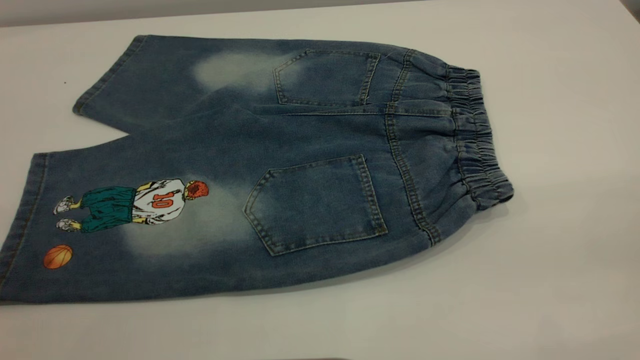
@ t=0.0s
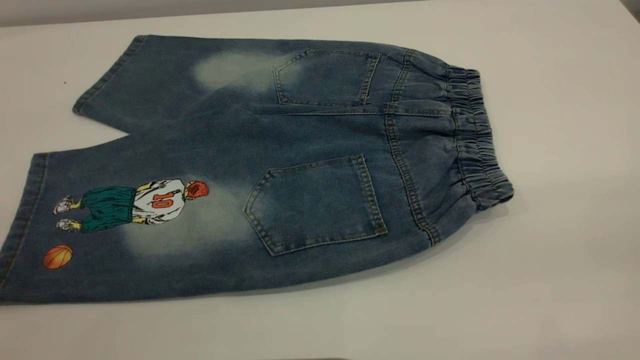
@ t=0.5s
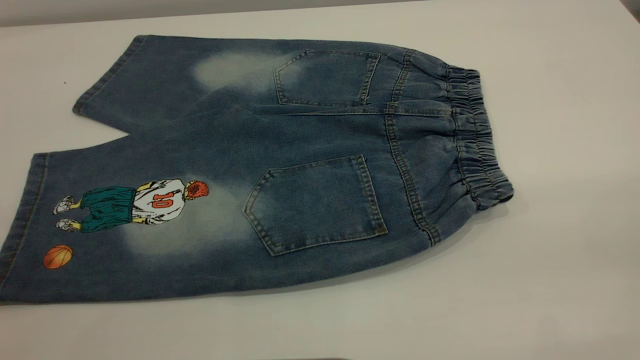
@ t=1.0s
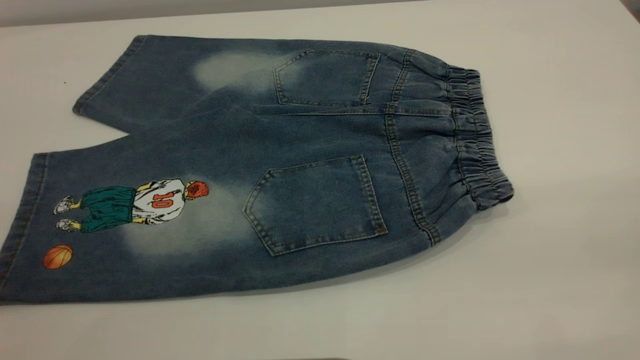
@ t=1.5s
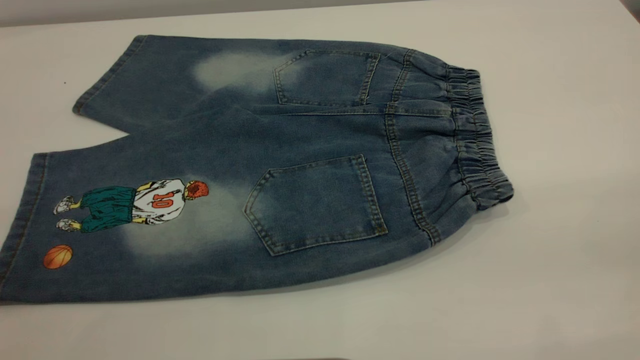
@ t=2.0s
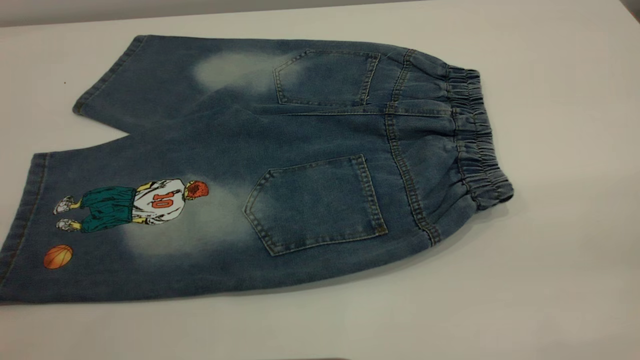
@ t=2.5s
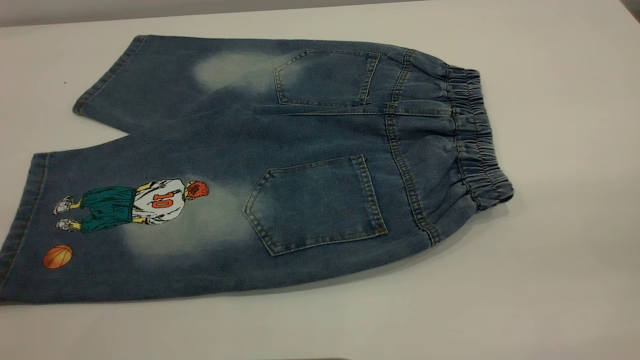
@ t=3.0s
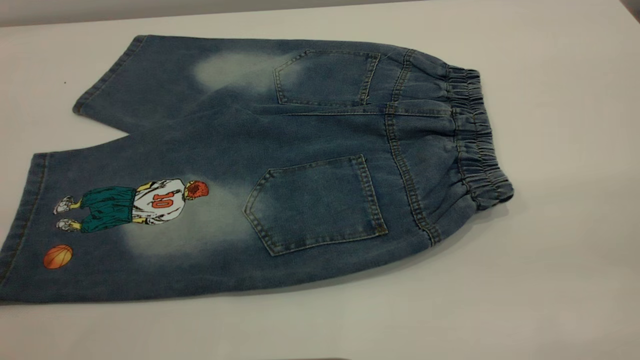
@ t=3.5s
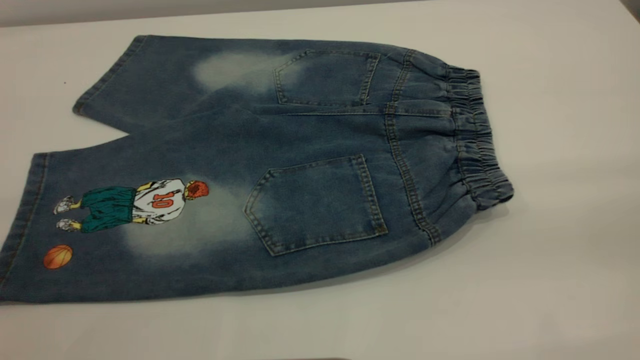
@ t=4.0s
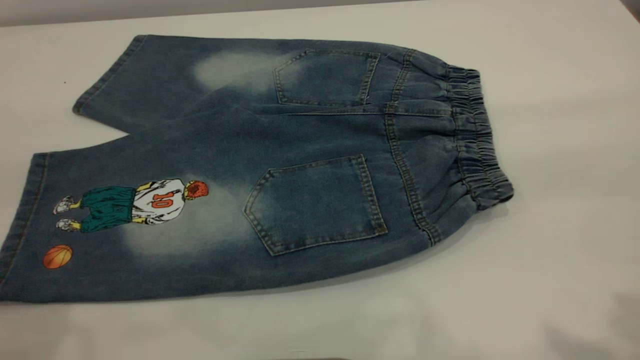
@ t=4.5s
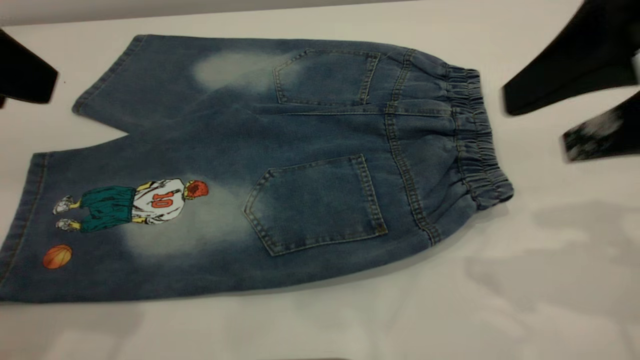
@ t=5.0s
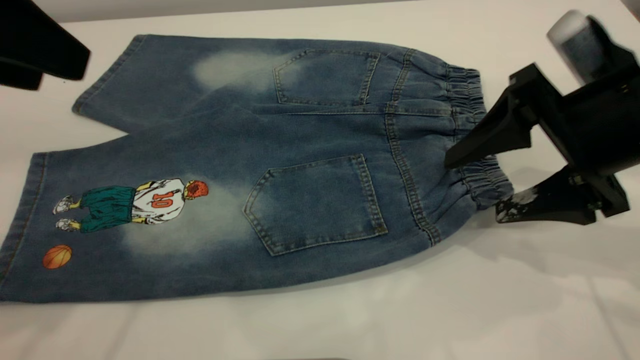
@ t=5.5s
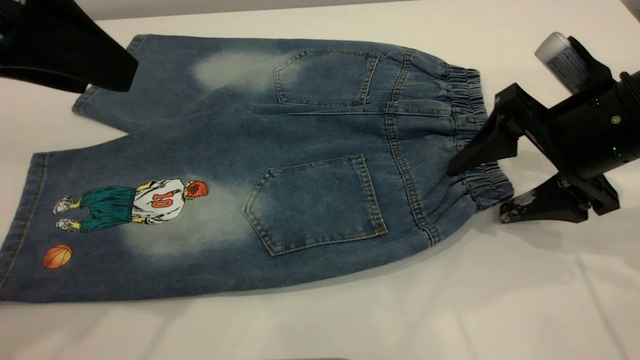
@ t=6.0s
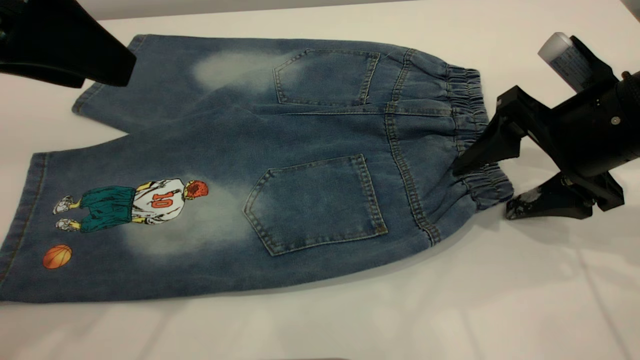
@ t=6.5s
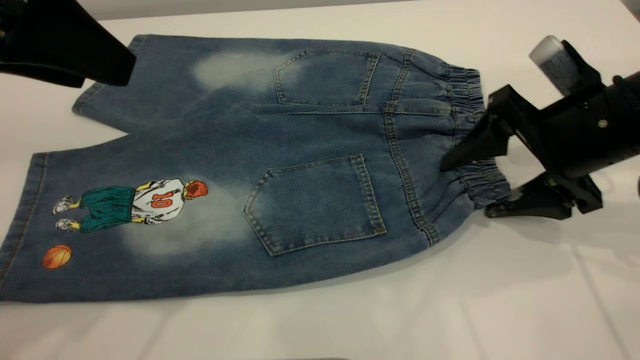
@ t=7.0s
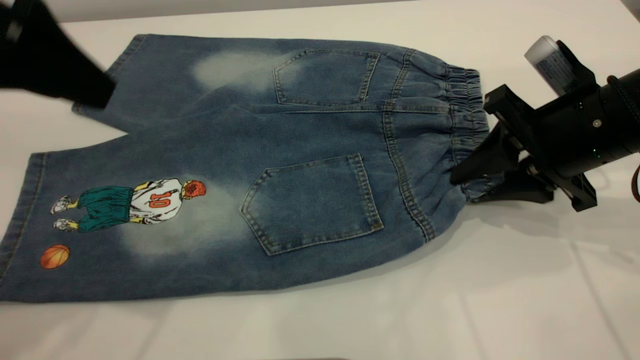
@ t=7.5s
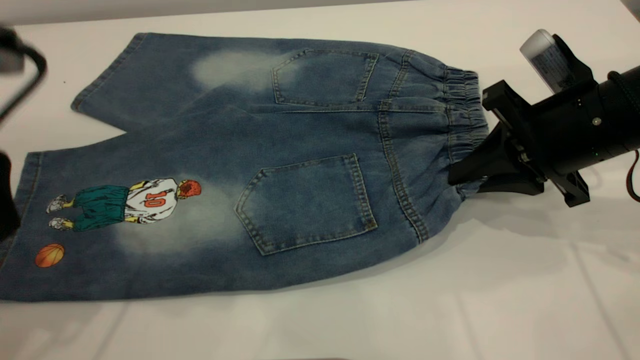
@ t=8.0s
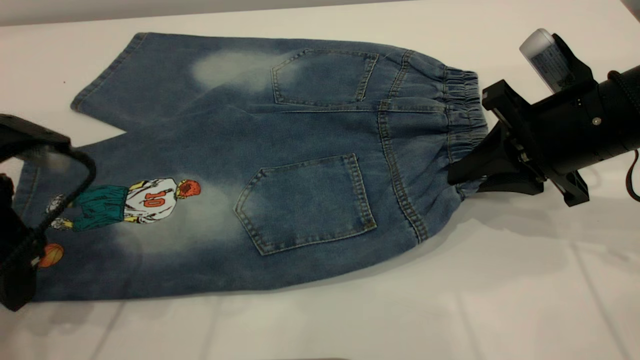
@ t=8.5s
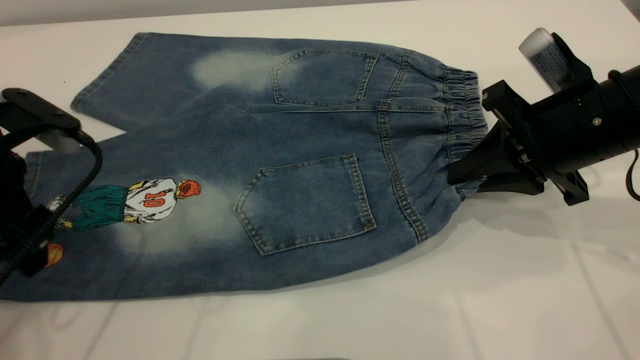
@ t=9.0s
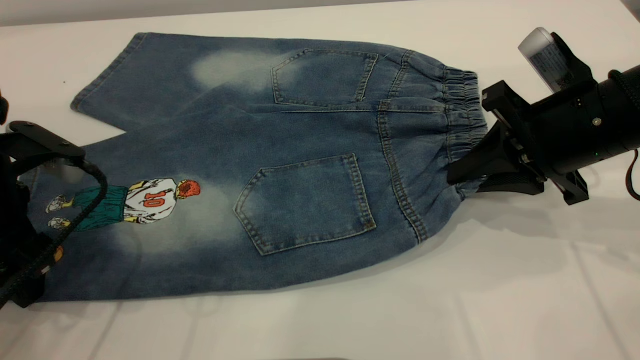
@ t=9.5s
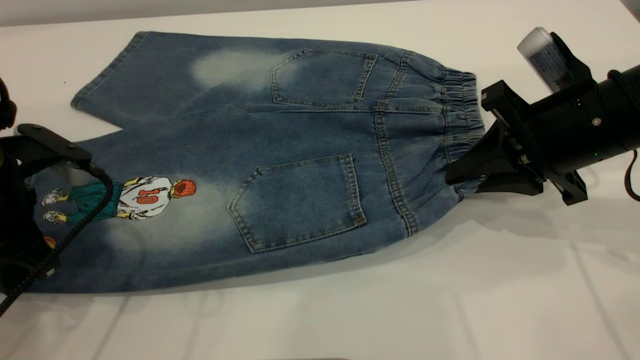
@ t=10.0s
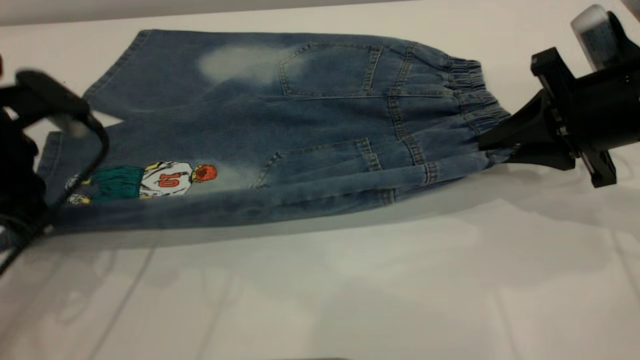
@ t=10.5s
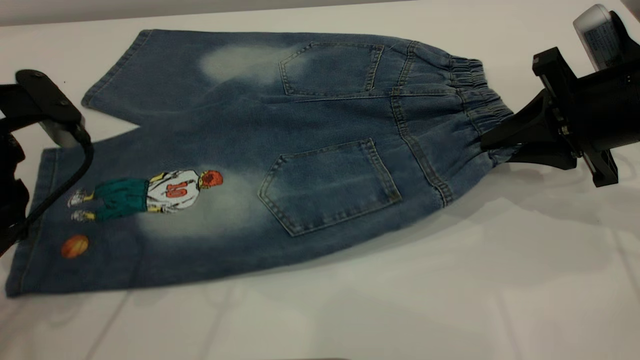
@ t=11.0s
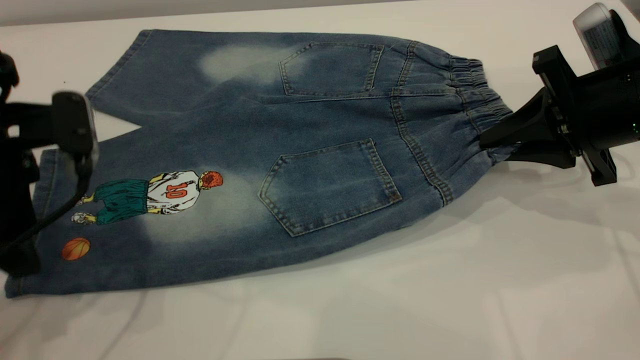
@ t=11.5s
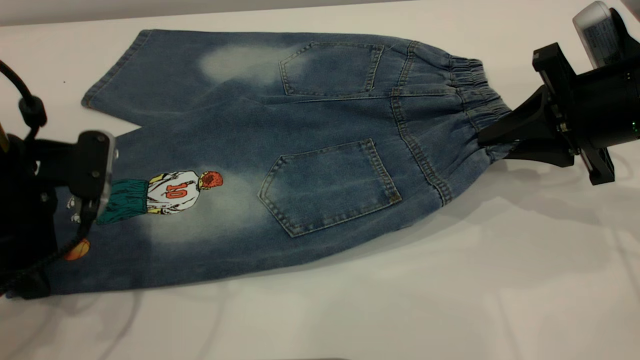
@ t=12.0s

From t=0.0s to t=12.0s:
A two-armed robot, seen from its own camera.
From t=0.0s to t=2.0s: Neither gripper changes place.
From t=4.0s to t=6.0s: The left gripper heads forward, covering roughly 20 cm, and opens; the right gripper travels forward and downward by about 35 cm.
From t=6.0s to t=8.0s: The right gripper closes up, while the left gripper travels downward by approximately 5 cm.
From t=8.0s to t=10.0s: The left gripper goes about 10 cm downward, and closes.
From t=10.0s to t=12.0s: The left gripper opens.

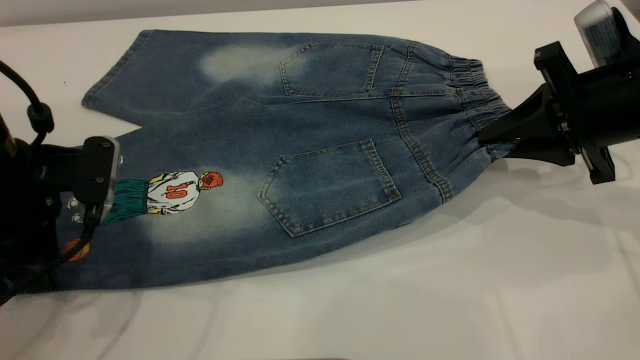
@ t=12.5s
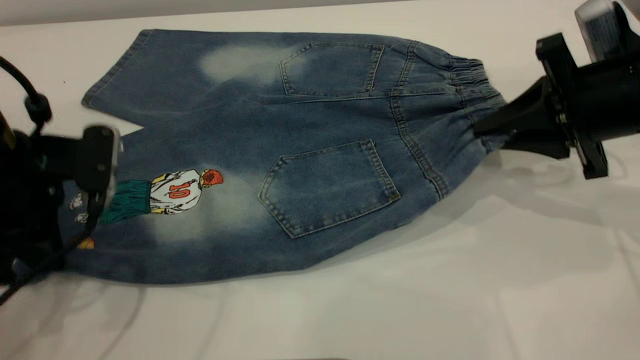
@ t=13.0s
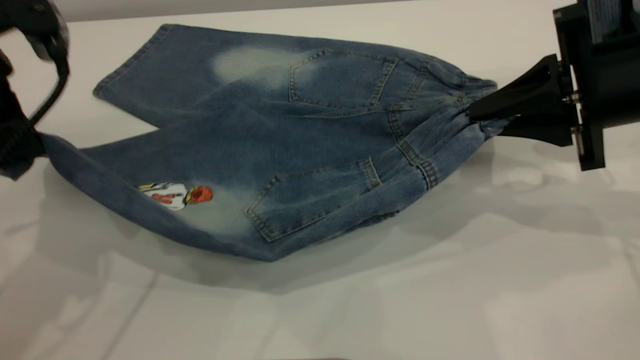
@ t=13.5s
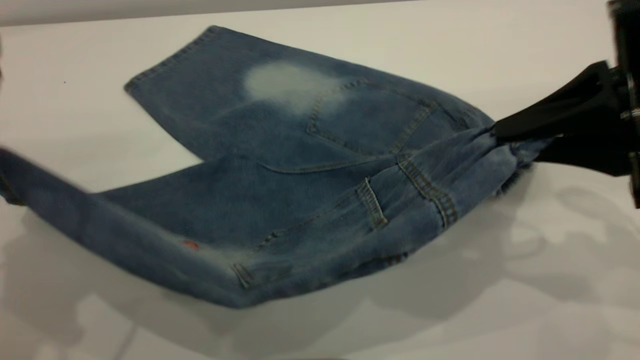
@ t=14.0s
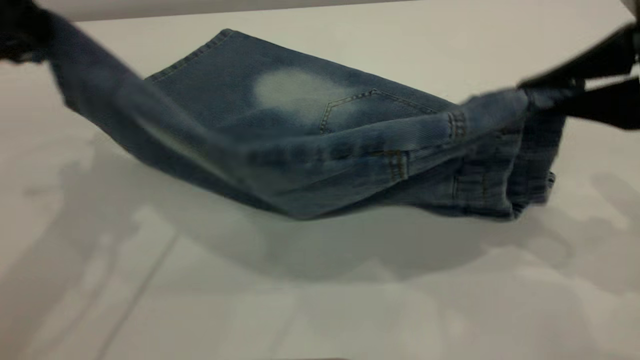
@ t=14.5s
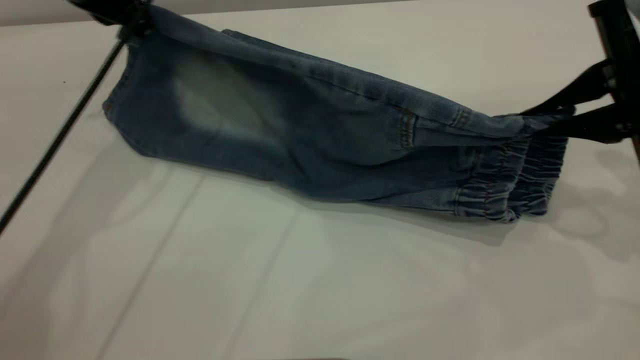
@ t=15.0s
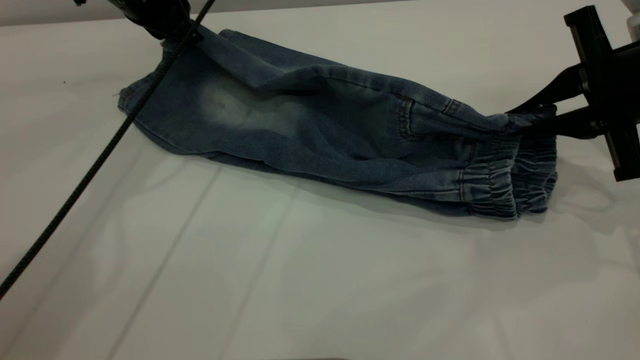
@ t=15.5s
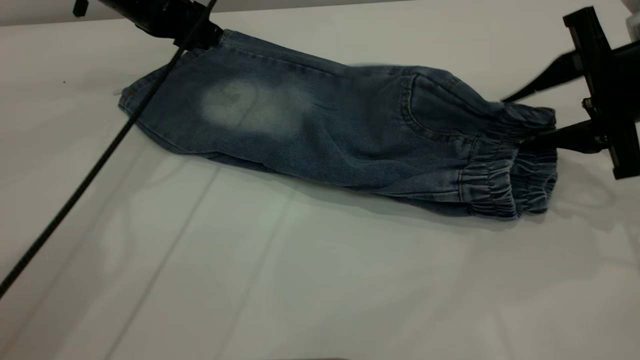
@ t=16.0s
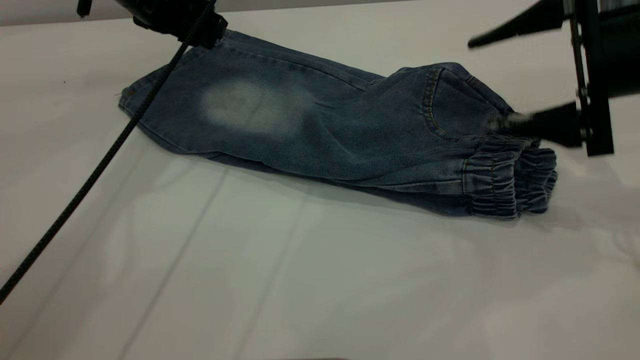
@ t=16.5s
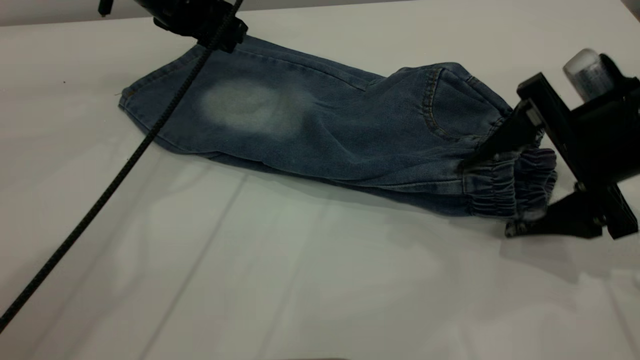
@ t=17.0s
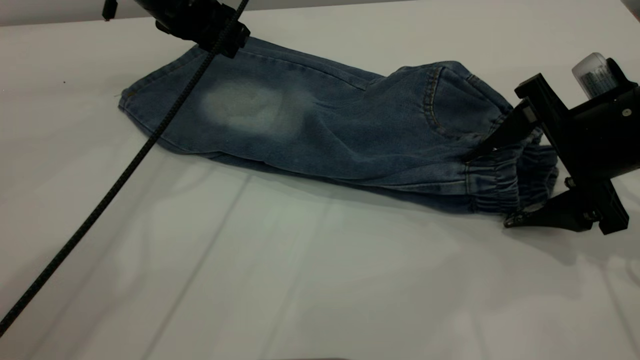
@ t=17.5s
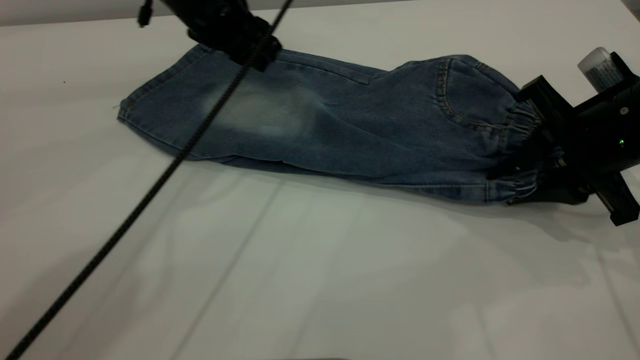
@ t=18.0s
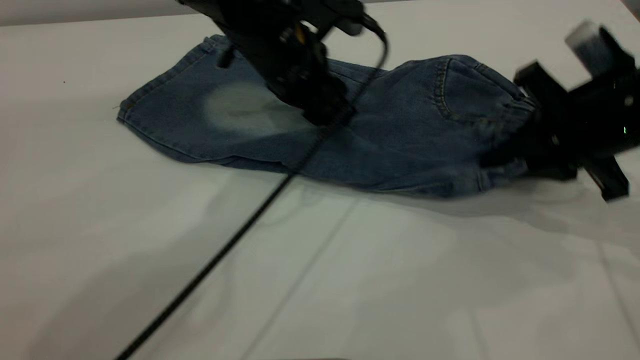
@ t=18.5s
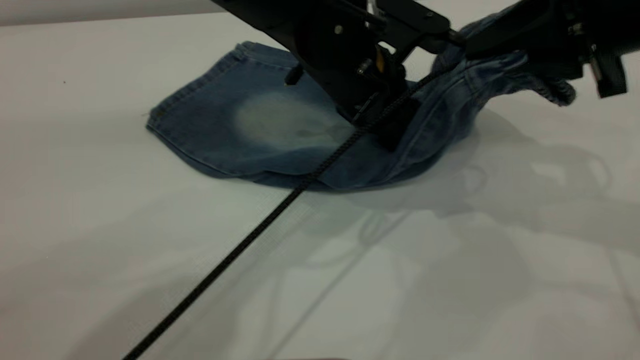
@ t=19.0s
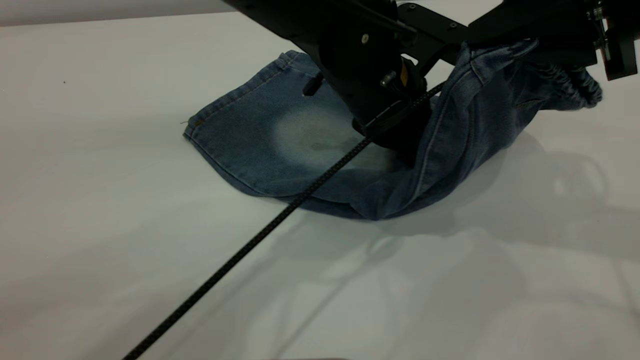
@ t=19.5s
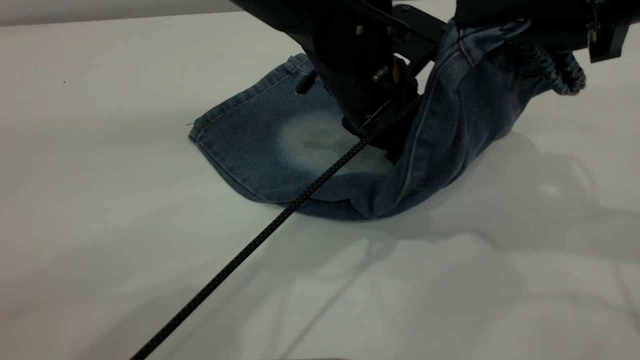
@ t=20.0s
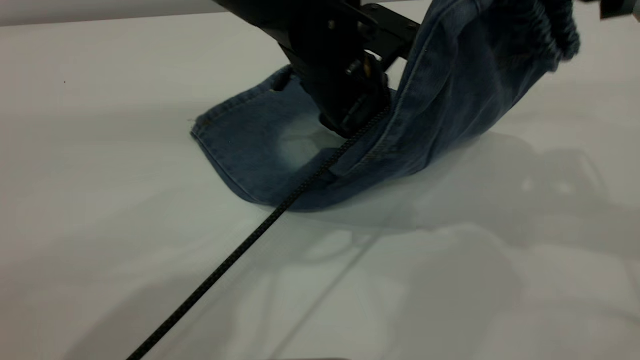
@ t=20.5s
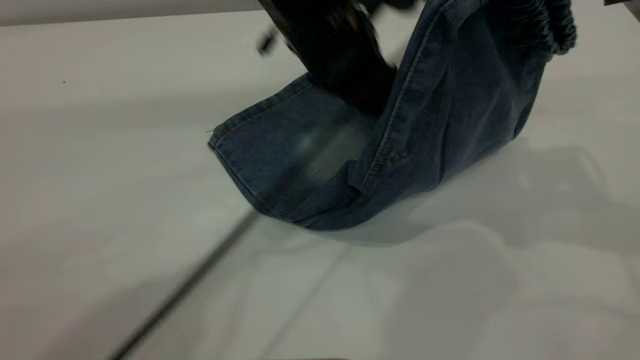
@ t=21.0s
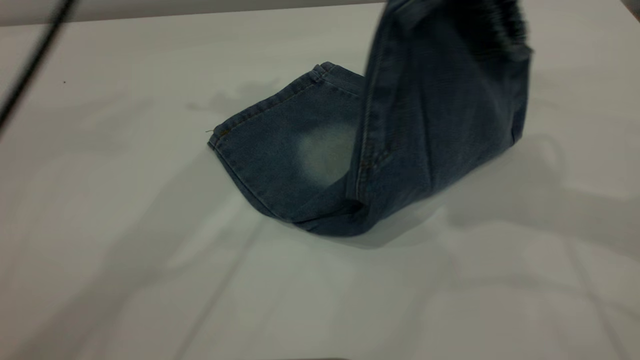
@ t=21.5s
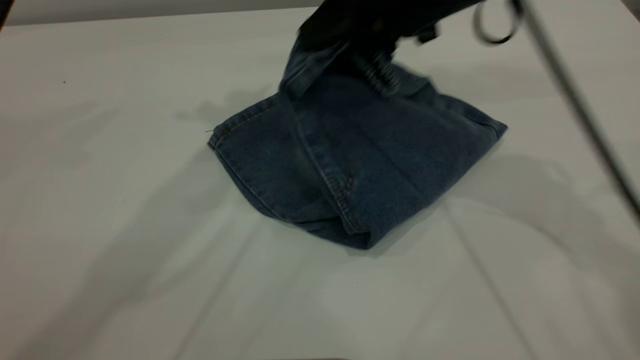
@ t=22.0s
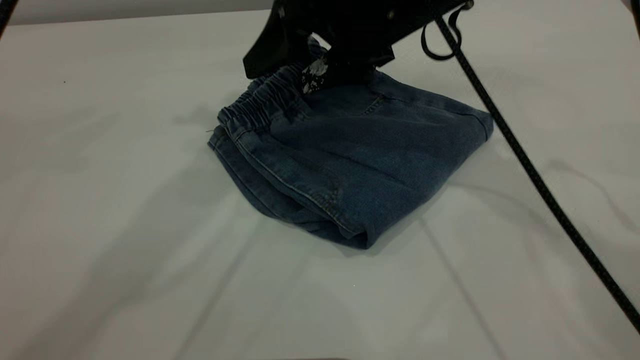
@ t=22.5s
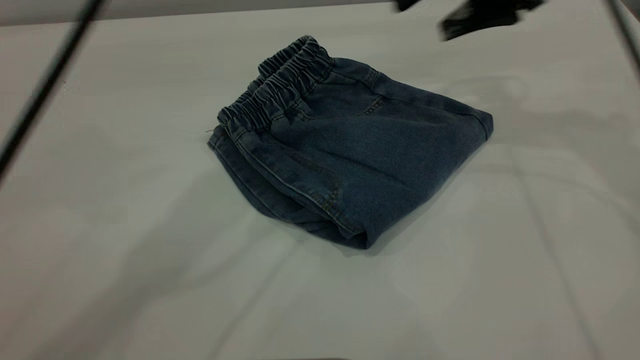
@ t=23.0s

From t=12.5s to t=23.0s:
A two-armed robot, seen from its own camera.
Step, from t=12.5s to t=16.0s: Fold the bottom of the pants upward.
Step, from t=16.5s to t=22.5s: Fold your pants from right to left.
From t=12.5s to t=14.5s: The left gripper shifts roughly 15 cm upward, and closes its fingers. Meanwhile the right gripper goes about 10 cm upward and backward.
From t=14.5s to t=16.5s: The left gripper moves forward and downward, about 20 cm, and opens its fingers. The right gripper heads forward, covering some 5 cm, and opens its fingers.
From t=16.5s to t=19.0s: The right gripper moves upward, roughly 5 cm, and closes its fingers. Meanwhile the left gripper moves to the right and backward, some 25 cm.
From t=19.0s to t=21.0s: The left gripper heads upward, covering some 5 cm.
From t=21.0s to t=23.0s: The right gripper goes roughly 15 cm forward, moves roughly 15 cm to the left and comes back, and opens up, while the left gripper moves upward and to the left, about 15 cm.
